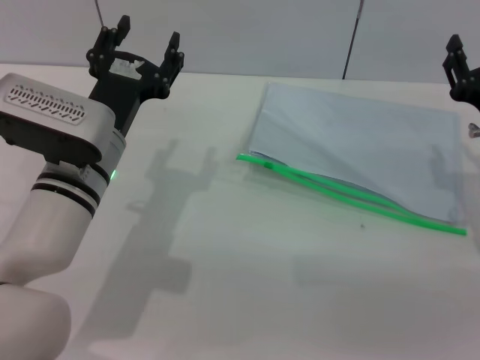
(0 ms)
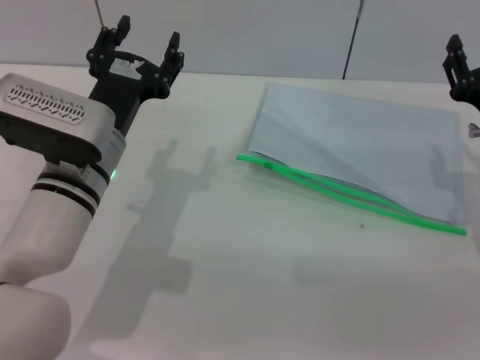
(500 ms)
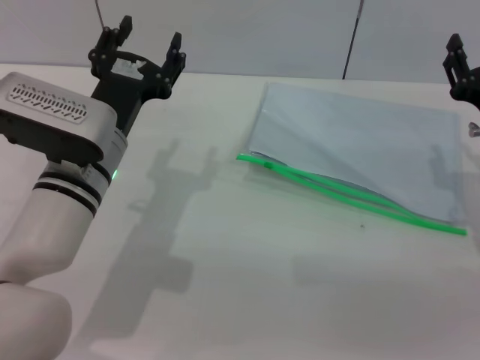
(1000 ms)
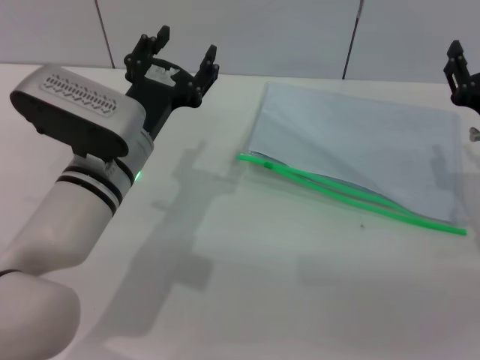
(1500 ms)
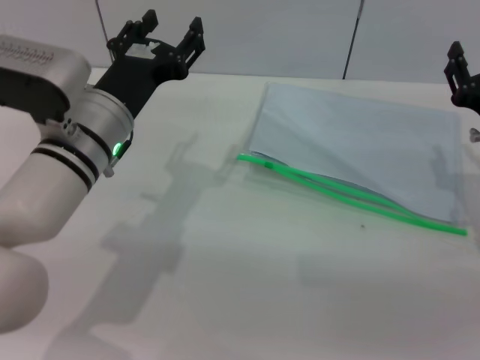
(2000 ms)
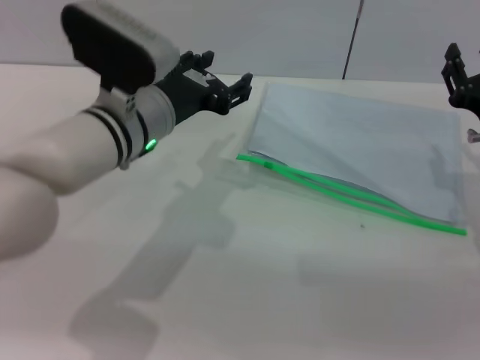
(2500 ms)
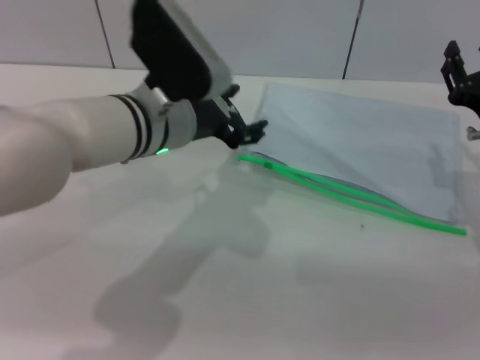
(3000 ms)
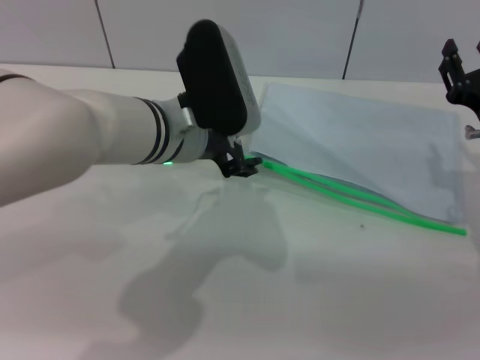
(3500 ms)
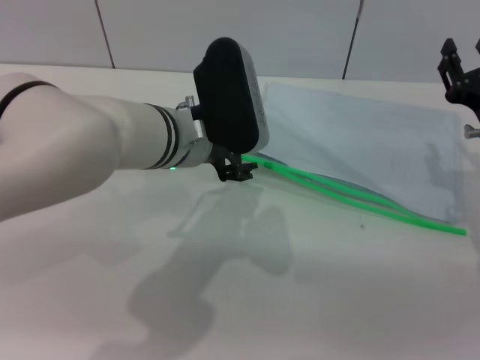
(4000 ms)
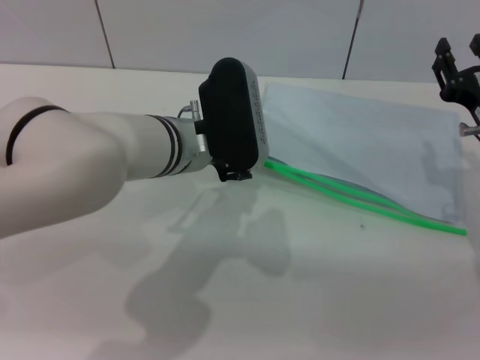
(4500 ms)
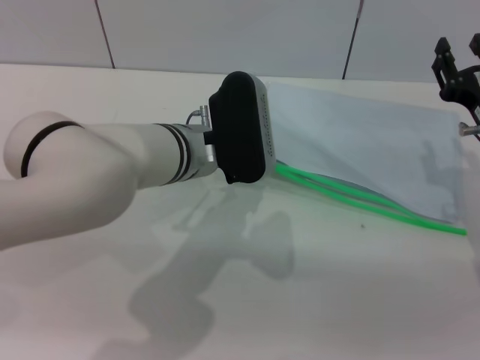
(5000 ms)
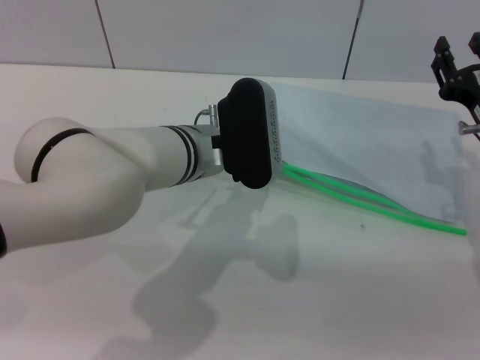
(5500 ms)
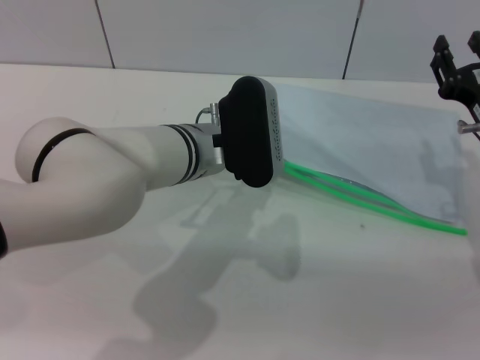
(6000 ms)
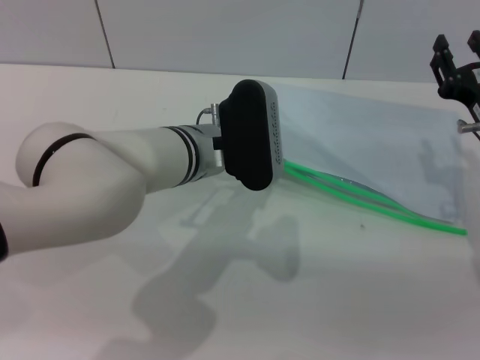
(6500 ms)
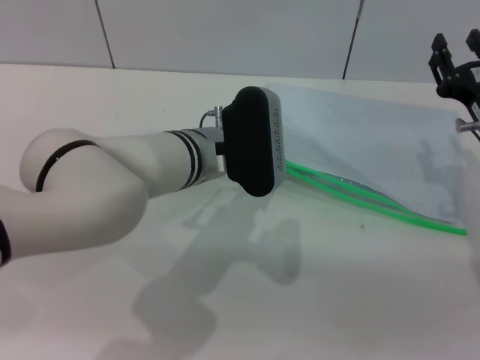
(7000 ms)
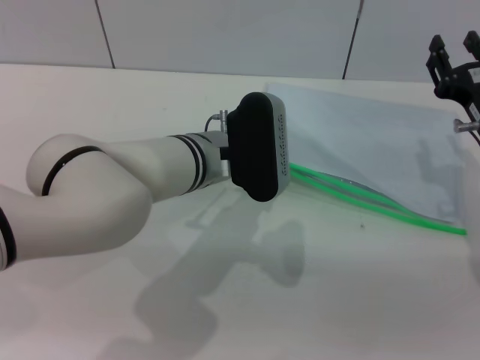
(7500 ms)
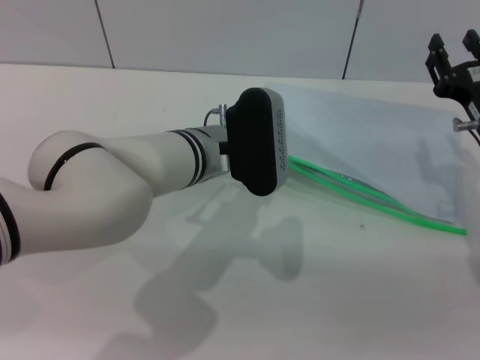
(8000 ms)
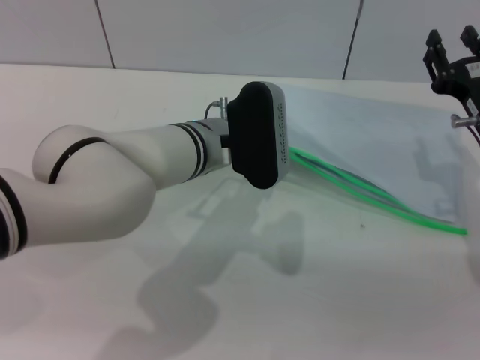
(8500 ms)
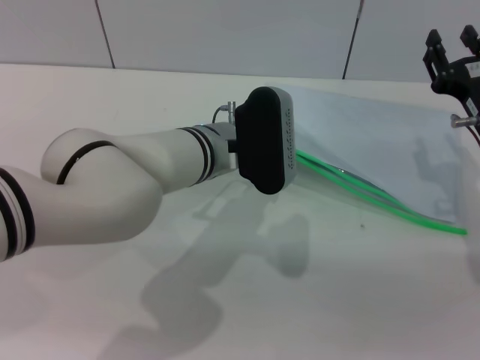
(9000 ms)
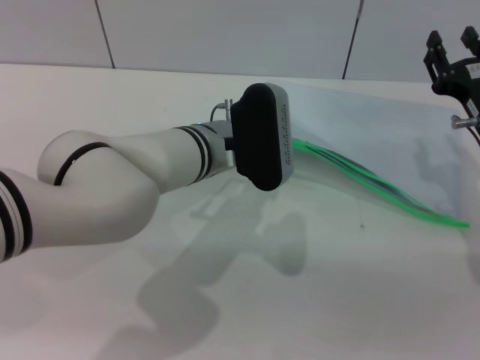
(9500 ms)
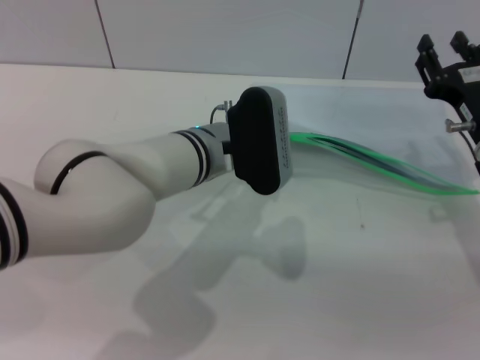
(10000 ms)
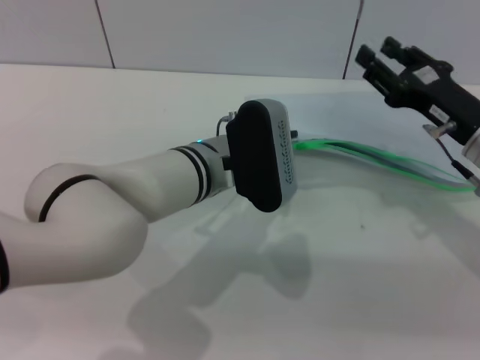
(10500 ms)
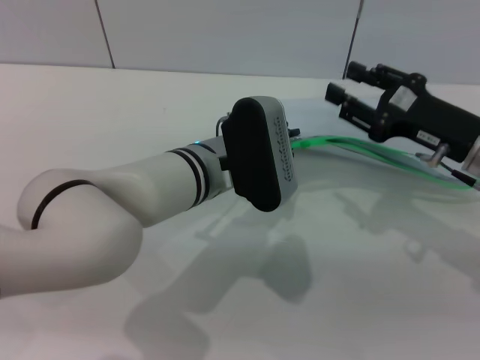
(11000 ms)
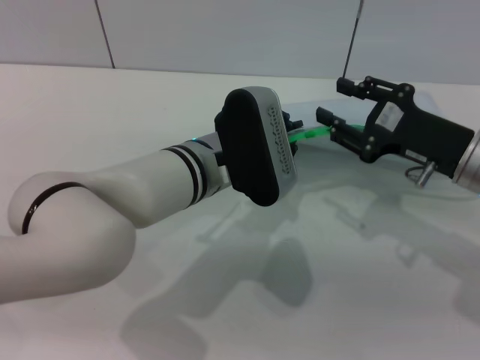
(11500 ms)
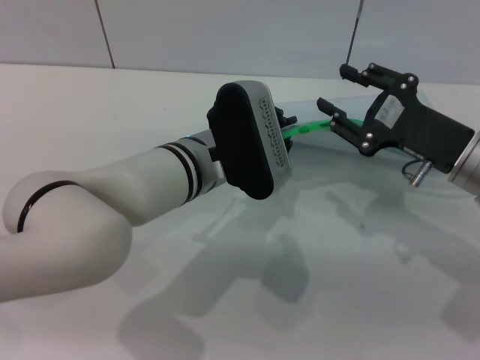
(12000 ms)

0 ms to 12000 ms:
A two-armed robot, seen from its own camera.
Step, 0 ms to 10000 ms: Pick up the transparent plastic bag with the left gripper.
0 ms to 2000 ms: The grippers move only a little.
2000 ms to 4000 ms: The left gripper travels to the right by roughly 5 cm.
4000 ms to 6000 ms: The grippers make only small movements.
6000 ms to 8000 ms: The two grippers keep their place.
8000 ms to 10000 ms: The left gripper closes its fingers.

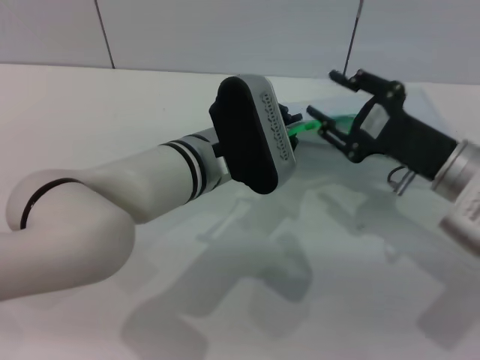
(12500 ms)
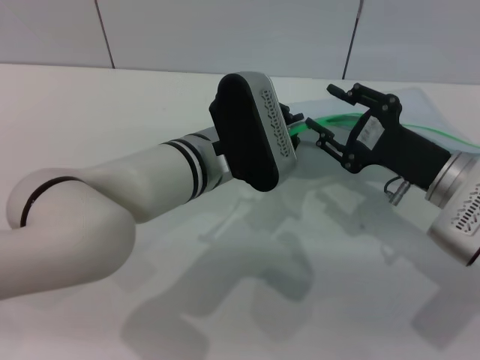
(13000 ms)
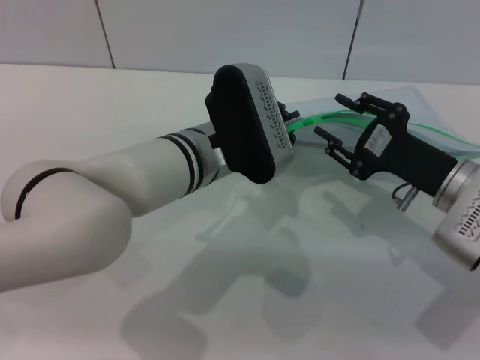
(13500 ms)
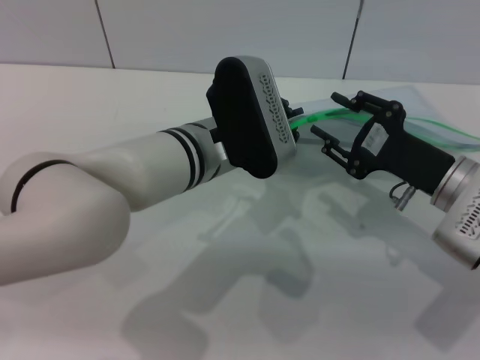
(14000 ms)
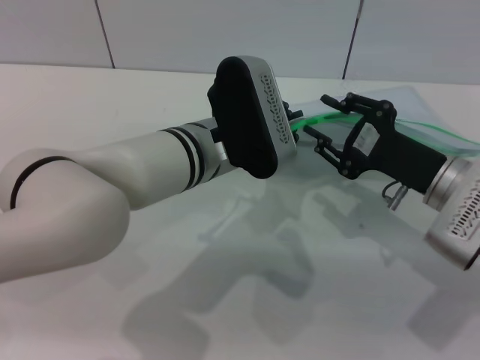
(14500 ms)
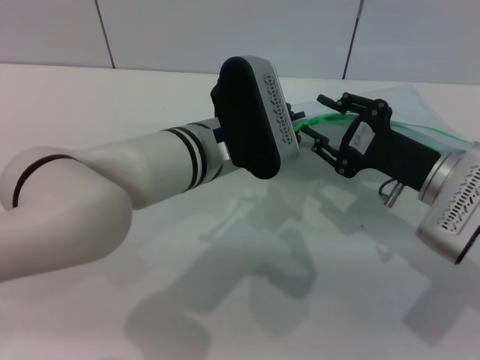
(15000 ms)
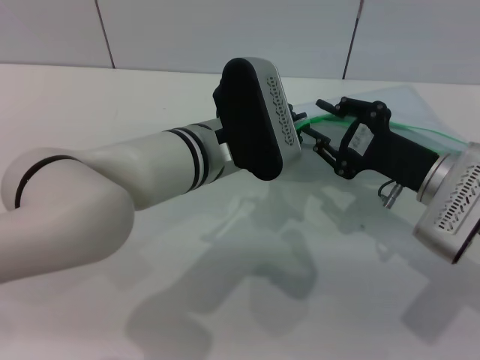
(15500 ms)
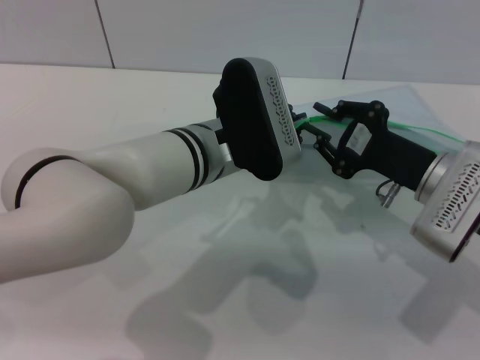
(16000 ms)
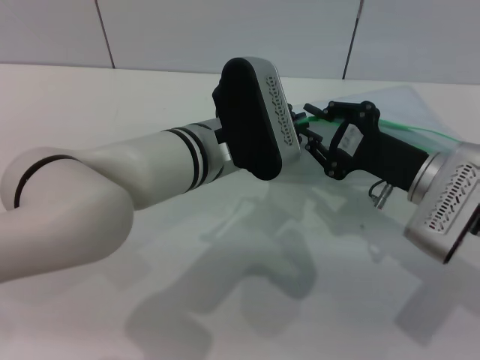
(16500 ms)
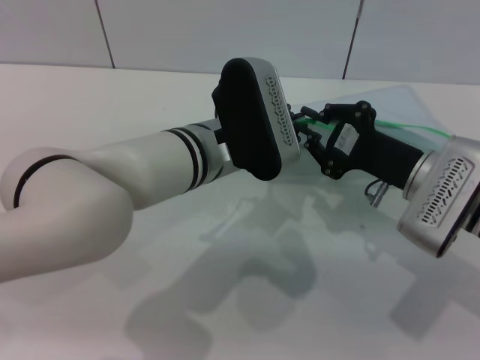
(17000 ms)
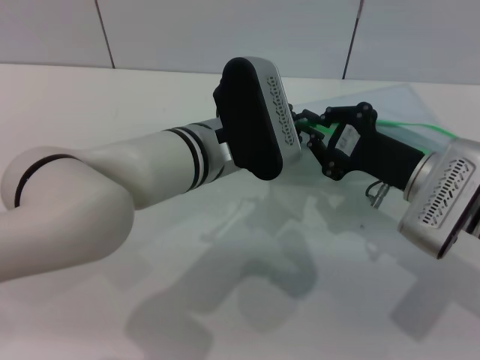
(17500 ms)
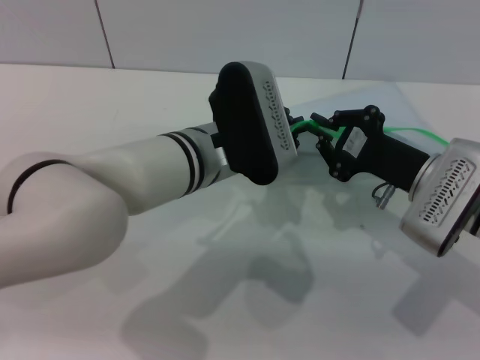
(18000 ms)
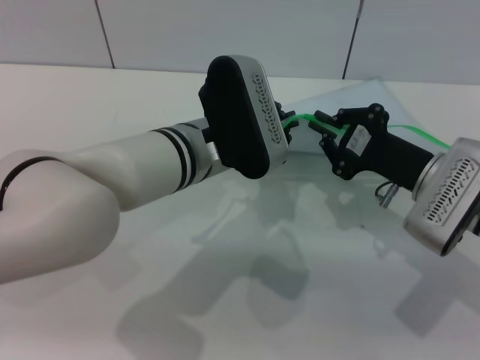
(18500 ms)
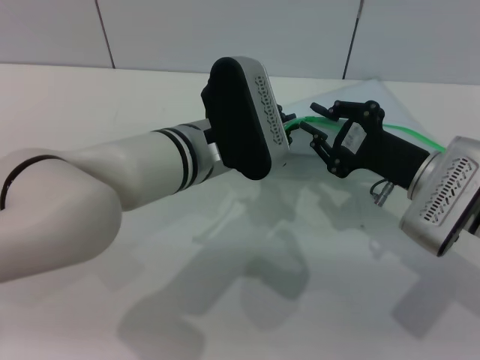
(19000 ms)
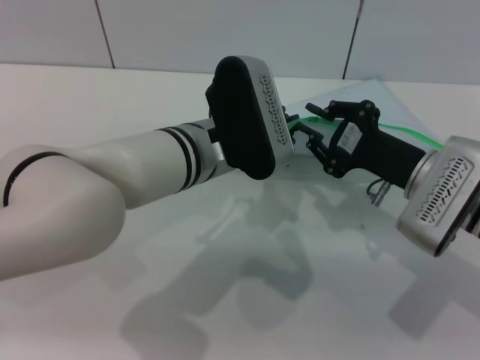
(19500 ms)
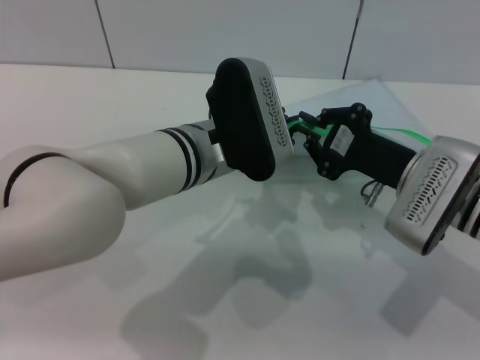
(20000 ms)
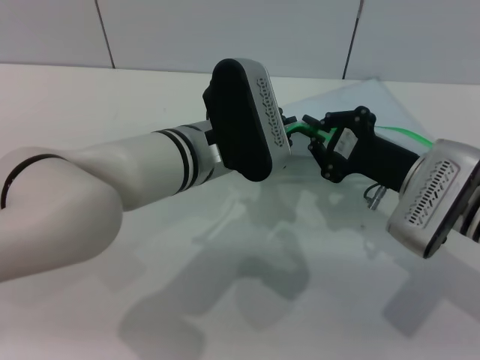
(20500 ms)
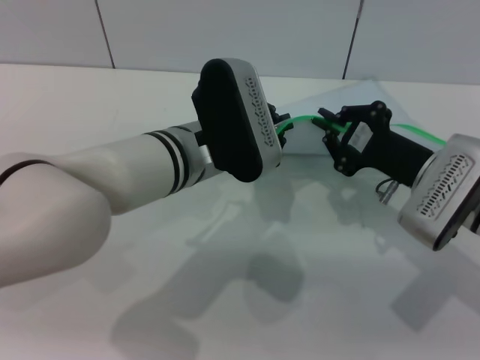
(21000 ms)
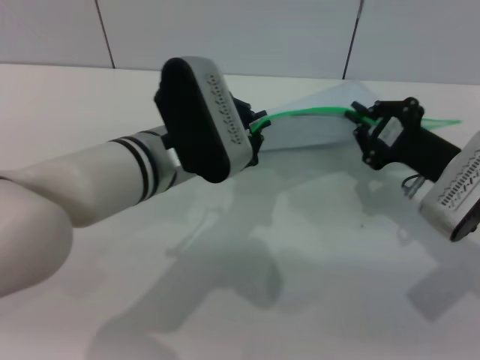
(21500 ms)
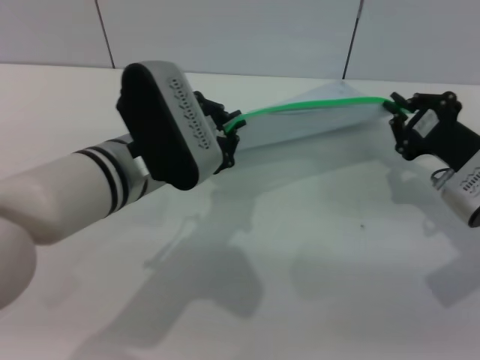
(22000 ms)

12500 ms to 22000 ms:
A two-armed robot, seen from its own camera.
12500 ms to 14500 ms: The grippers move only a little.
14500 ms to 16500 ms: The right gripper closes its fingers.
16500 ms to 18000 ms: Neither gripper changes place.
18000 ms to 20000 ms: Both grippers stay put.
20000 ms to 22000 ms: The right gripper goes some 5 cm to the right; the left gripper goes about 5 cm to the left.

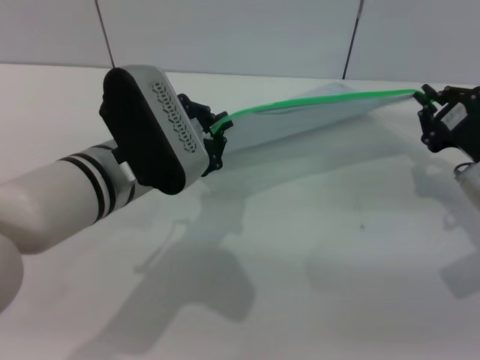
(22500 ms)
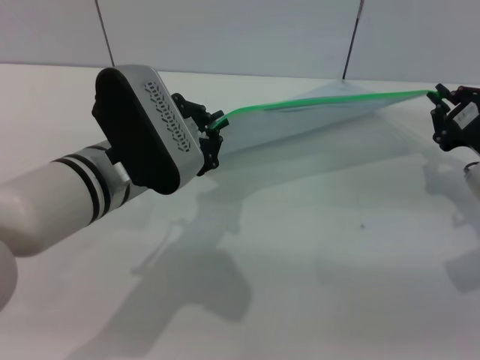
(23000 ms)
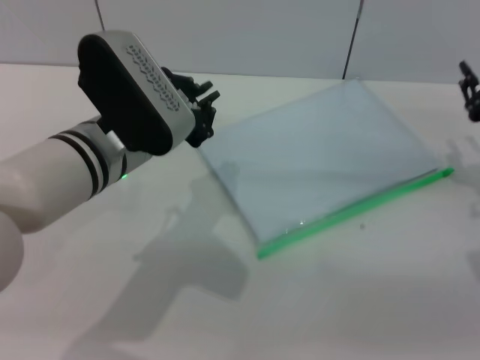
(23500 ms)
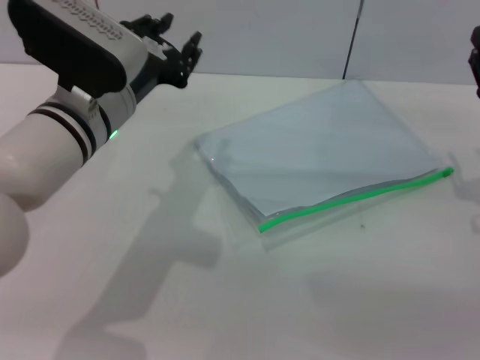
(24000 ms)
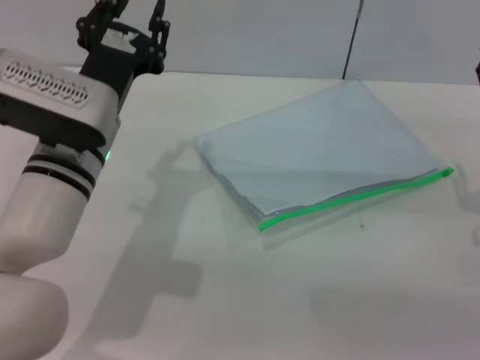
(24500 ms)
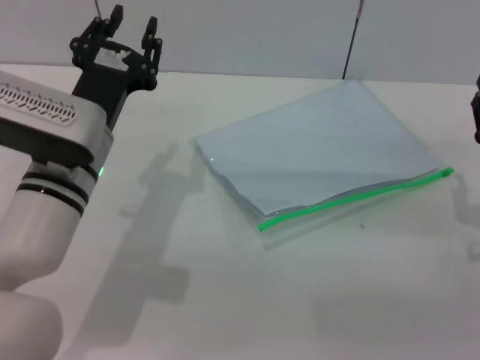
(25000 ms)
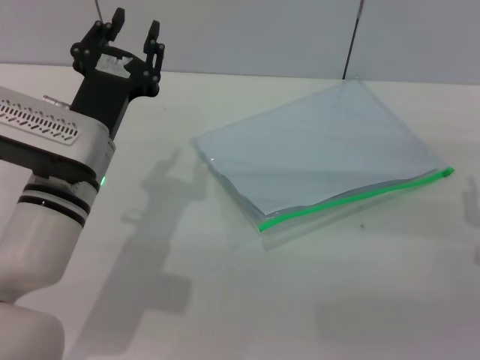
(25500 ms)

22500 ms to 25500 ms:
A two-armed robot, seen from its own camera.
Step, 23500 ms to 24500 ms: Place the transparent plastic bag.
22500 ms to 24000 ms: The right gripper opens up; the left gripper opens its fingers.
24000 ms to 25500 ms: The left gripper heads downward, covering about 5 cm, while the right gripper moves backward, approximately 5 cm.
